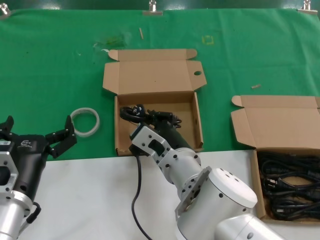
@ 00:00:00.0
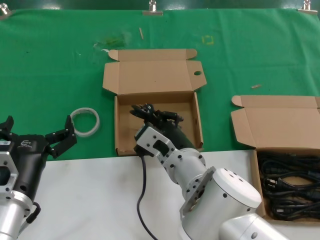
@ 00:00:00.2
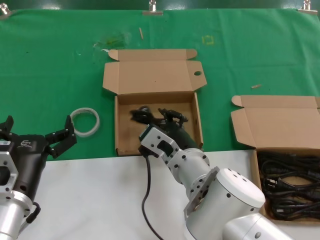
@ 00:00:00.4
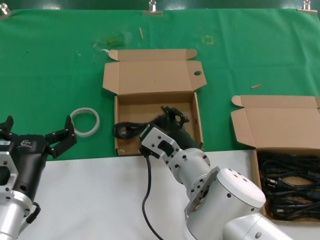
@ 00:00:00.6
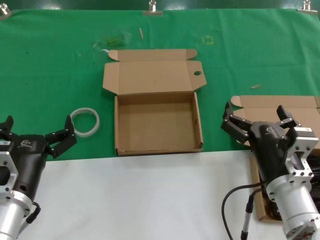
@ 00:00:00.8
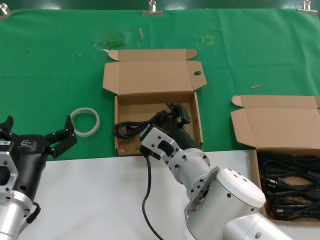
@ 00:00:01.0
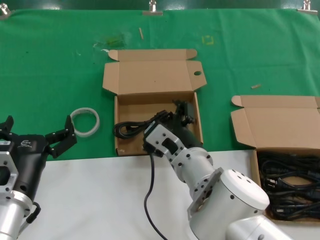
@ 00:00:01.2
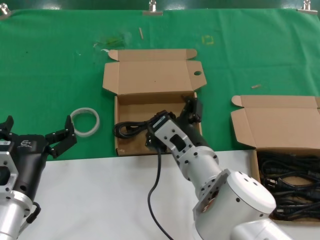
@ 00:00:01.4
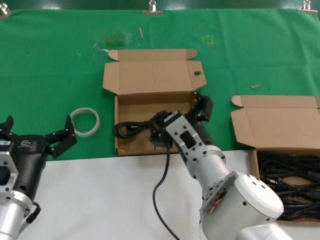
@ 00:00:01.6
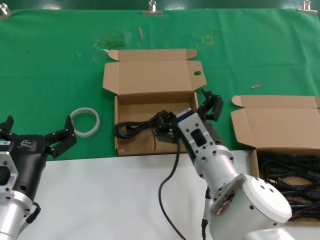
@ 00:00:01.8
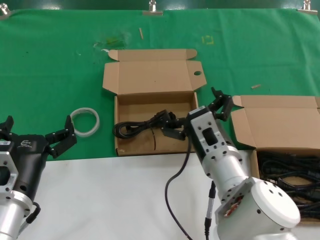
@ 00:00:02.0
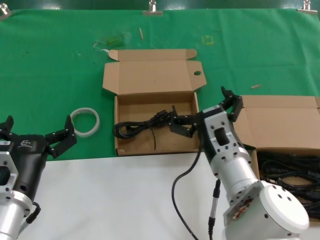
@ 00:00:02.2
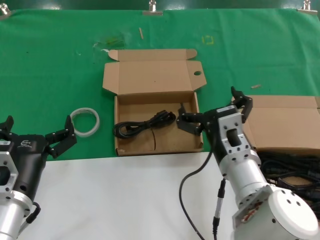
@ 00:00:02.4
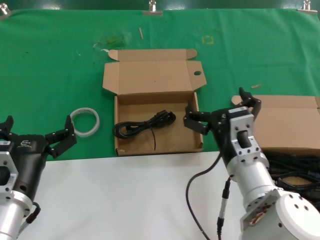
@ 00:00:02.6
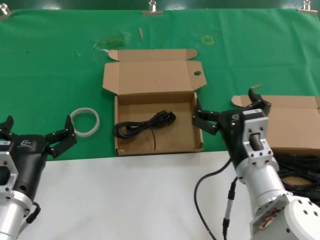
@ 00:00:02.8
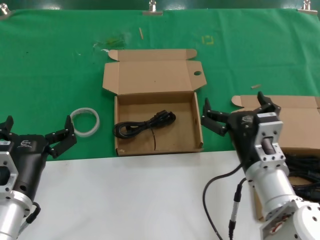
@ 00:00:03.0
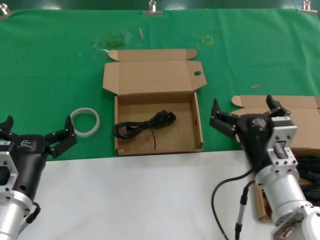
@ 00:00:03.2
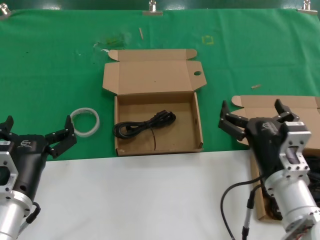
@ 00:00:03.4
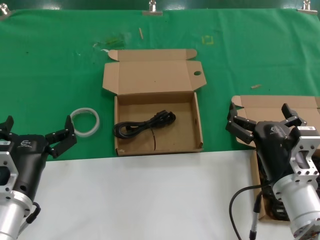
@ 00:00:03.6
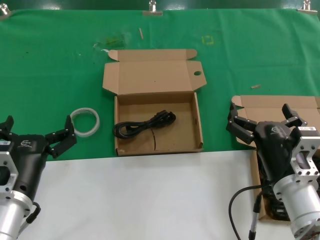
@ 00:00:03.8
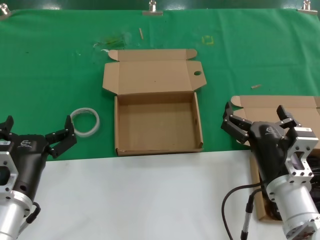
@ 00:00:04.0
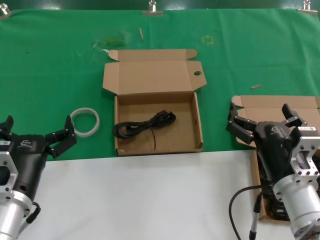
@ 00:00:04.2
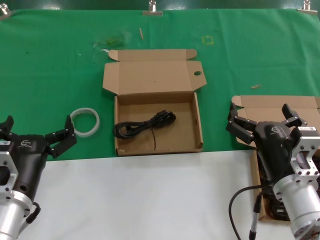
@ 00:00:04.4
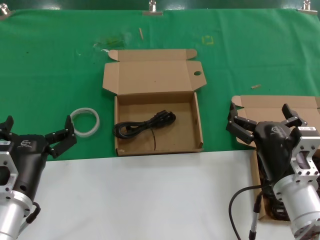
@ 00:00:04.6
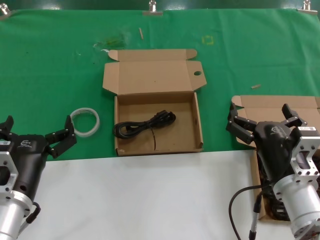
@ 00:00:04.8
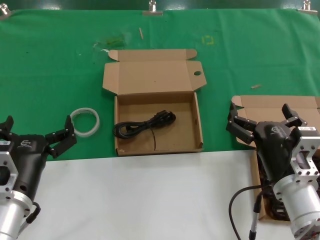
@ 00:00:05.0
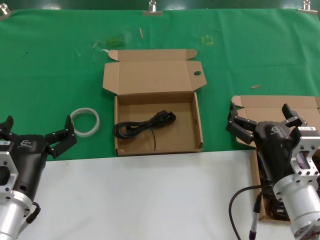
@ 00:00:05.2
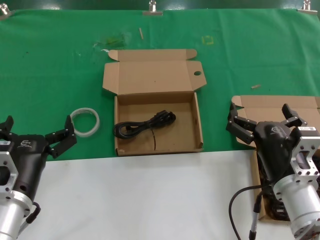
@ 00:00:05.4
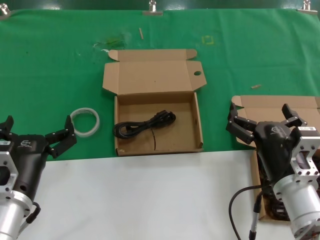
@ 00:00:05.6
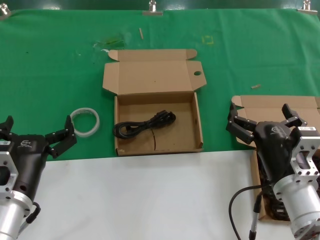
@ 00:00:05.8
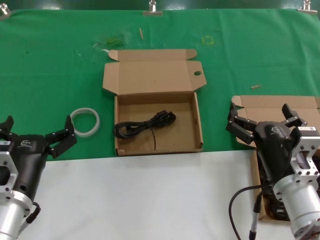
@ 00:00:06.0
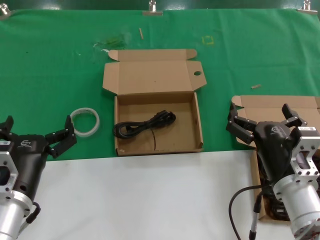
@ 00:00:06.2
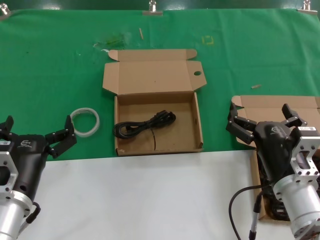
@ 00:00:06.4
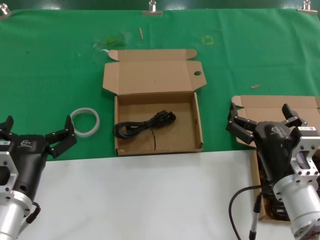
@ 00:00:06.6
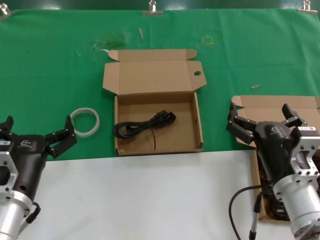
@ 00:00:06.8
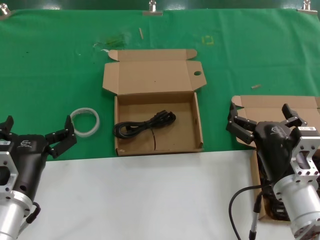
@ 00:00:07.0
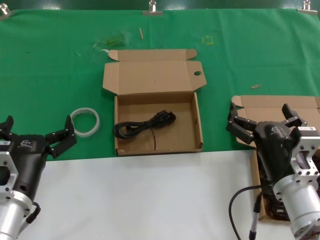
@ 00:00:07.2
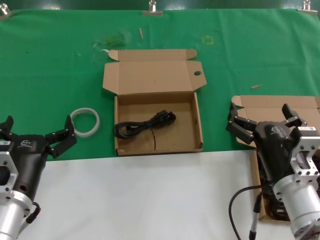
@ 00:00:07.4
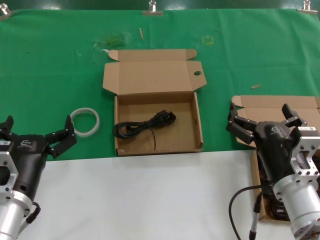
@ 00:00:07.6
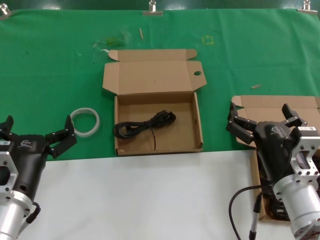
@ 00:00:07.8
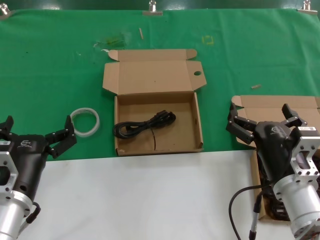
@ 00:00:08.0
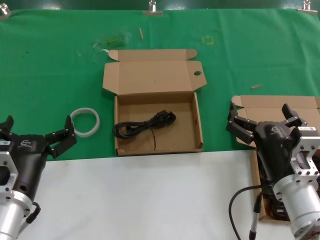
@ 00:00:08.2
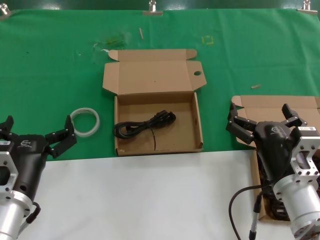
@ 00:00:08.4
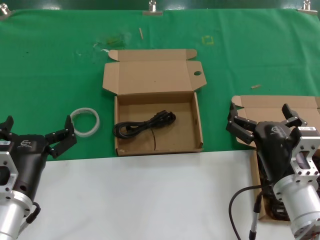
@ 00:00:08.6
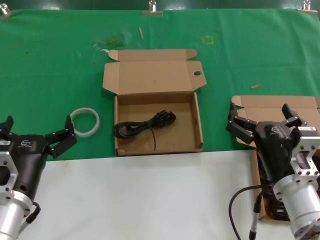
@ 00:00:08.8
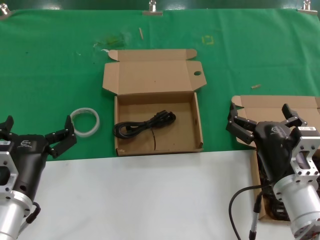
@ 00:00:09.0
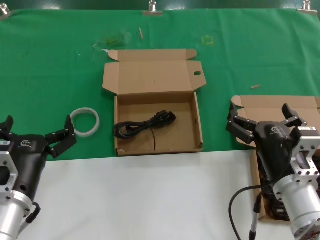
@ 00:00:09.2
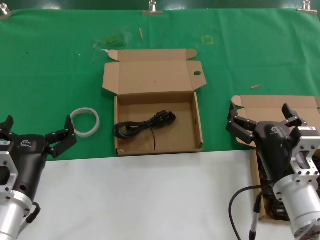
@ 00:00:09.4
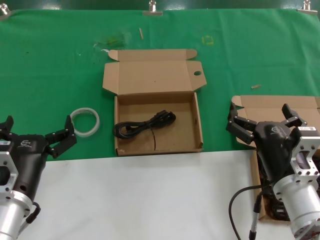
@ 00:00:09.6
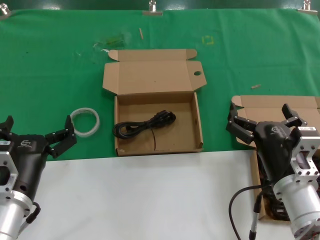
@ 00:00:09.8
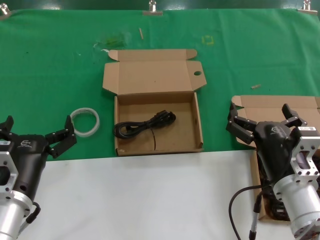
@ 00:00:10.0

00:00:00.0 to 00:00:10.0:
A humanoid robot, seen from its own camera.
Task of the whole recording: take the parts from the box containing them and put them into an empty box.
00:00:00.0 to 00:00:01.4: The hands make only small movements.
00:00:01.4 to 00:00:02.8: The right hand shifts roughly 10 cm to the right.
00:00:02.8 to 00:00:04.2: The right hand goes approximately 5 cm to the right.
00:00:04.2 to 00:00:10.0: Both hands stay put.

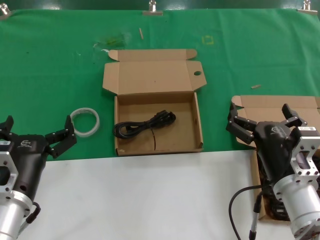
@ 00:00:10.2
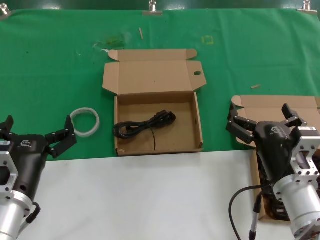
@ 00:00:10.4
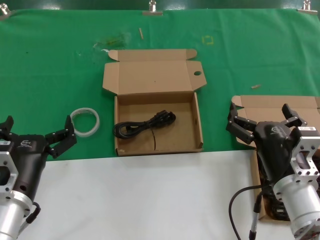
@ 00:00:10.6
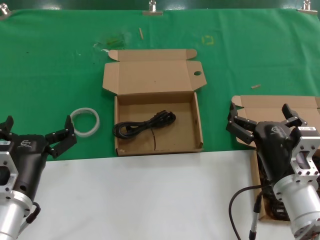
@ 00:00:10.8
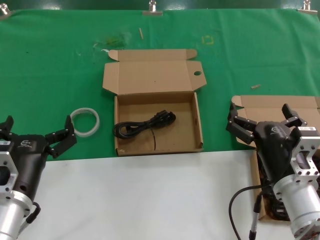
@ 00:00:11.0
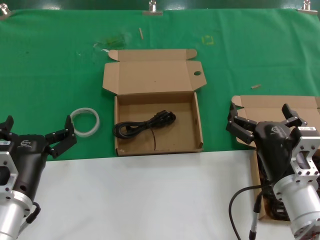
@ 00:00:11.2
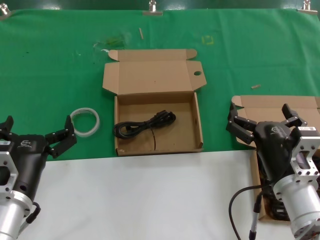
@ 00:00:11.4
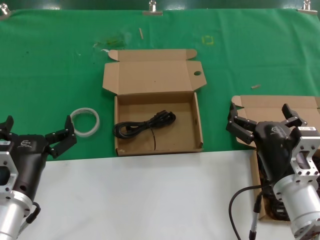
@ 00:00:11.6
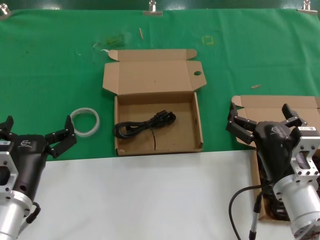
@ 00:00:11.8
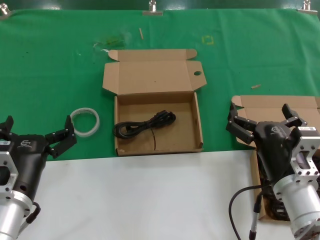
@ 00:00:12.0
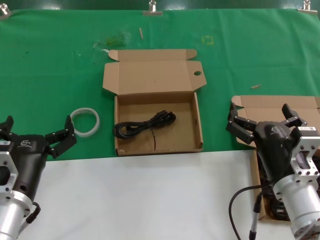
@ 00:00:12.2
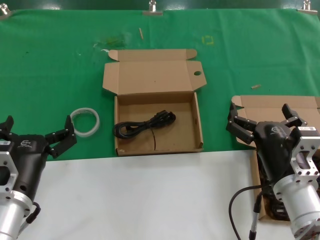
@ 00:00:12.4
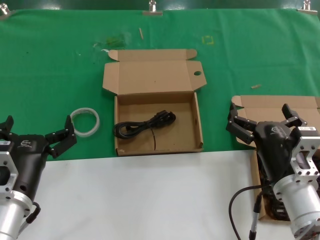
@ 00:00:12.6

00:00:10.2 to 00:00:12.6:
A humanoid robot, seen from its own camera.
Task of the whole recording: take the parts from the box containing them and put them into an empty box.
00:00:10.2 to 00:00:12.6: The two hands keep their place.
